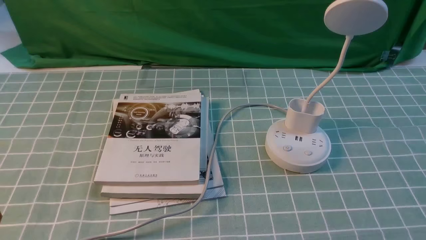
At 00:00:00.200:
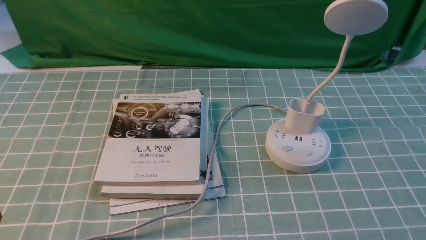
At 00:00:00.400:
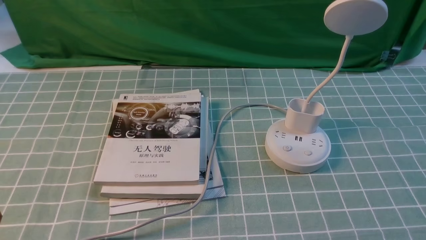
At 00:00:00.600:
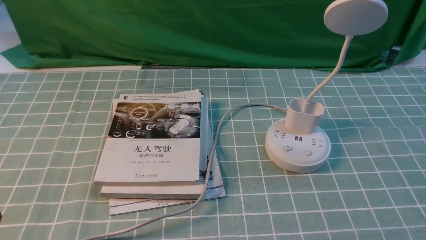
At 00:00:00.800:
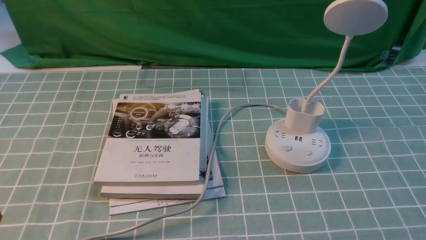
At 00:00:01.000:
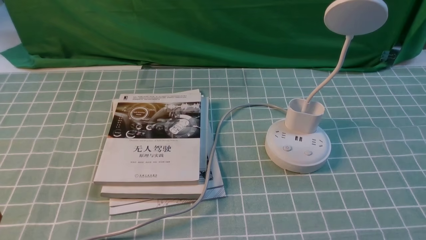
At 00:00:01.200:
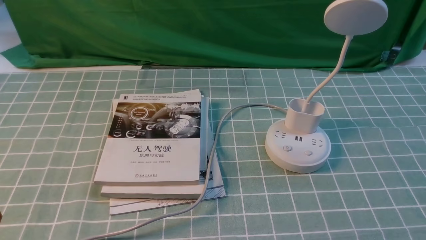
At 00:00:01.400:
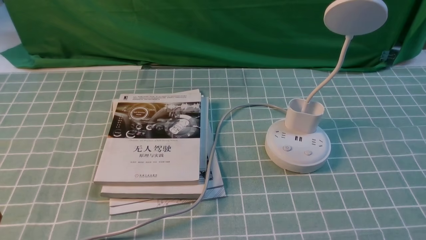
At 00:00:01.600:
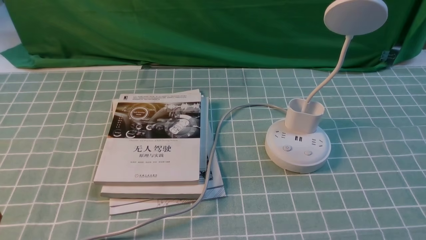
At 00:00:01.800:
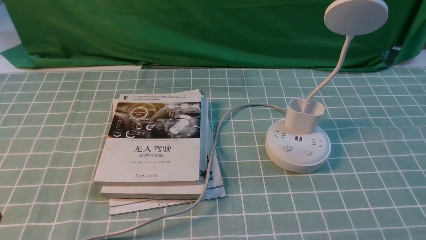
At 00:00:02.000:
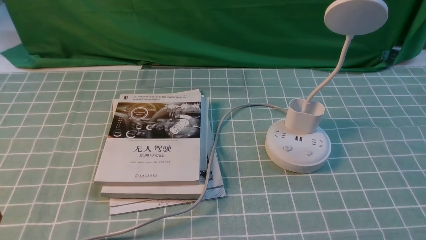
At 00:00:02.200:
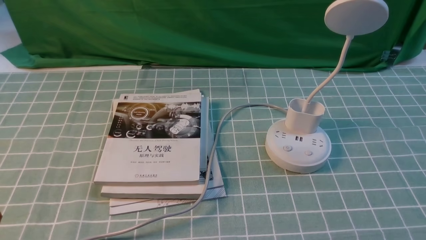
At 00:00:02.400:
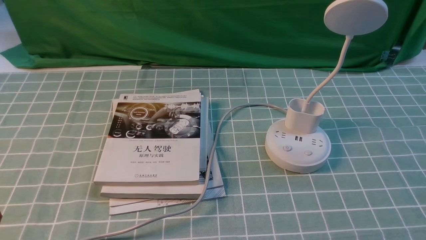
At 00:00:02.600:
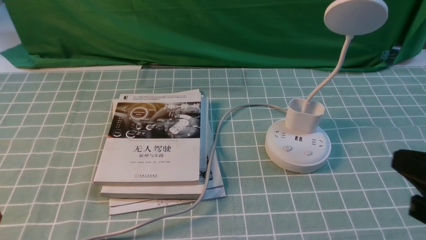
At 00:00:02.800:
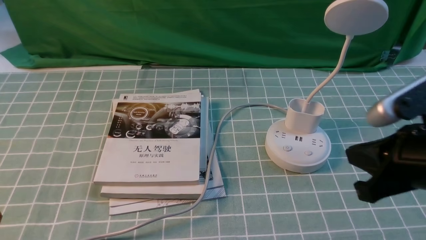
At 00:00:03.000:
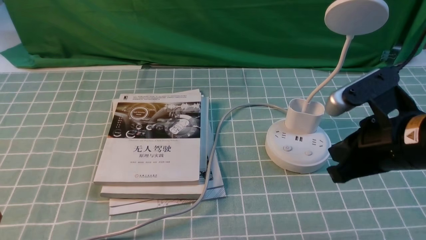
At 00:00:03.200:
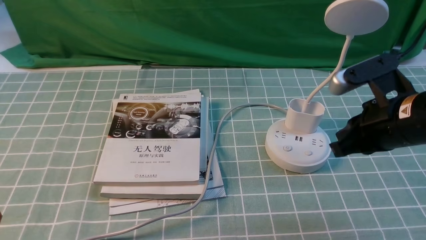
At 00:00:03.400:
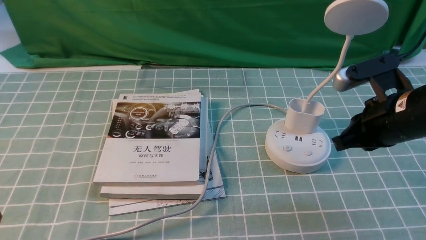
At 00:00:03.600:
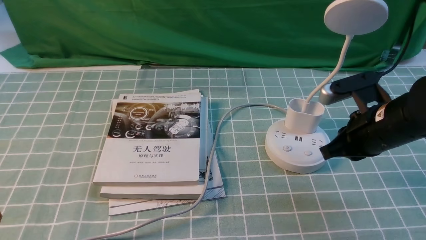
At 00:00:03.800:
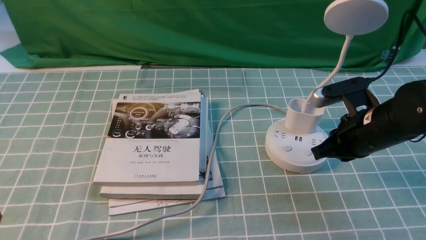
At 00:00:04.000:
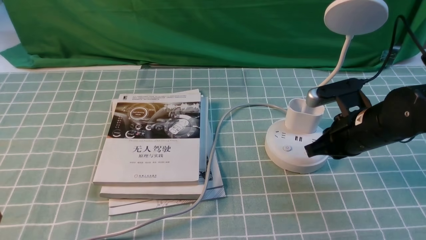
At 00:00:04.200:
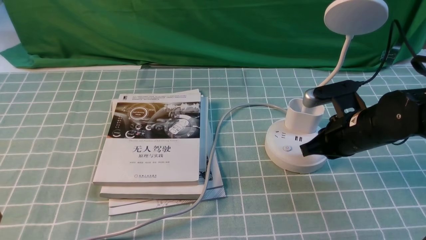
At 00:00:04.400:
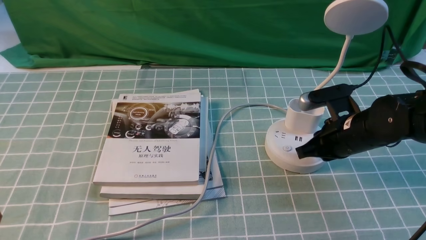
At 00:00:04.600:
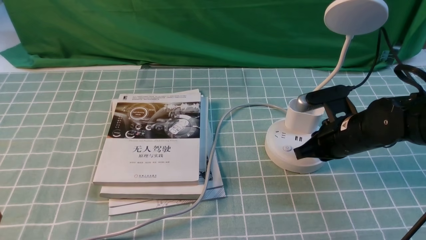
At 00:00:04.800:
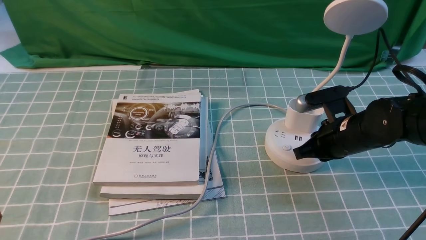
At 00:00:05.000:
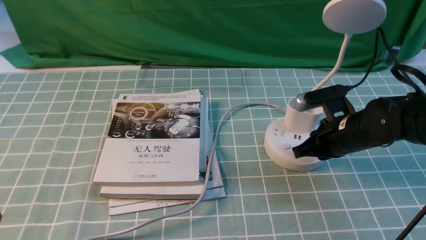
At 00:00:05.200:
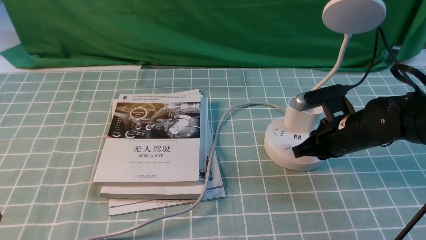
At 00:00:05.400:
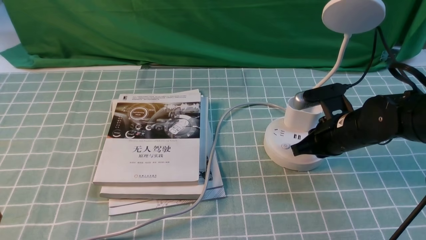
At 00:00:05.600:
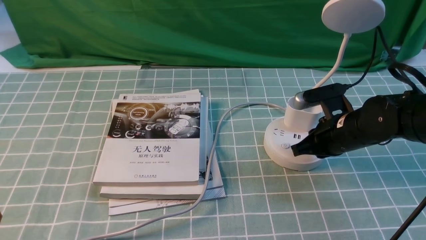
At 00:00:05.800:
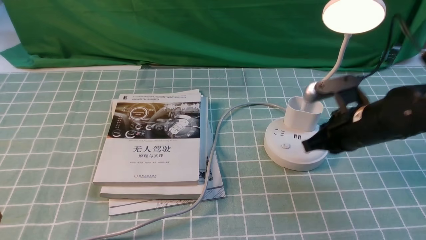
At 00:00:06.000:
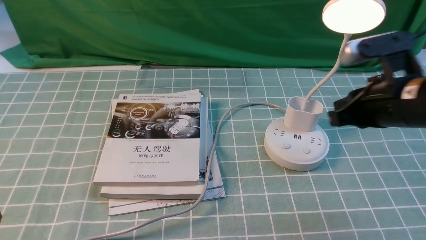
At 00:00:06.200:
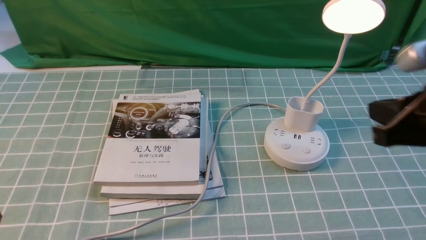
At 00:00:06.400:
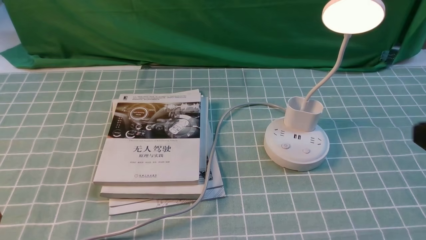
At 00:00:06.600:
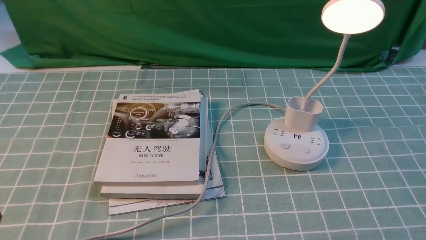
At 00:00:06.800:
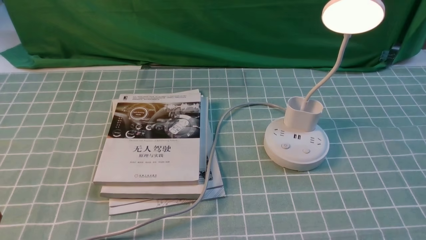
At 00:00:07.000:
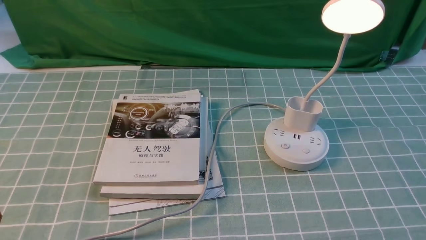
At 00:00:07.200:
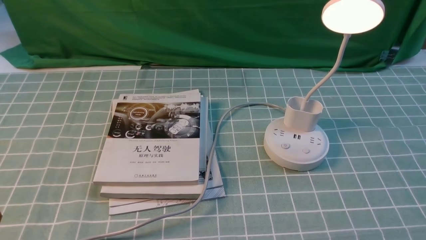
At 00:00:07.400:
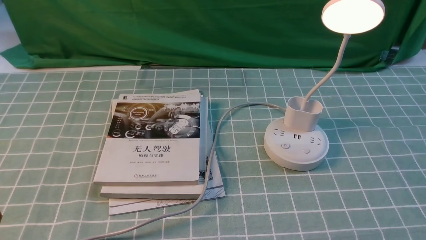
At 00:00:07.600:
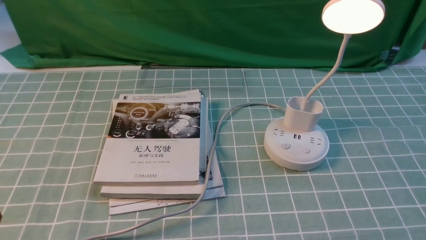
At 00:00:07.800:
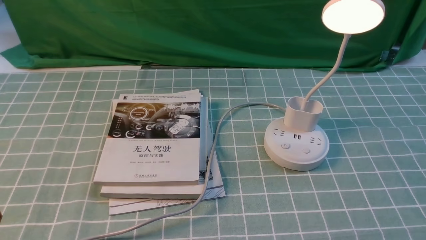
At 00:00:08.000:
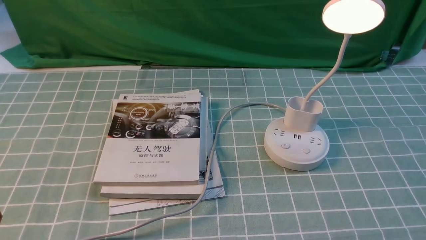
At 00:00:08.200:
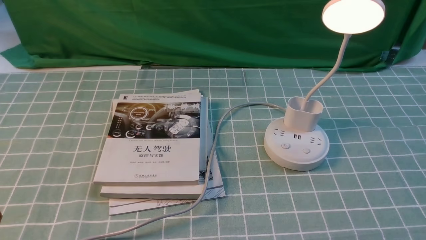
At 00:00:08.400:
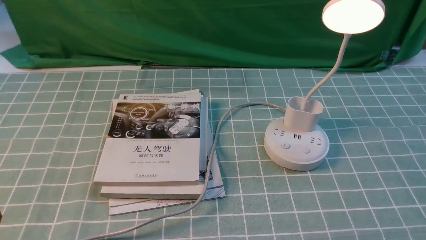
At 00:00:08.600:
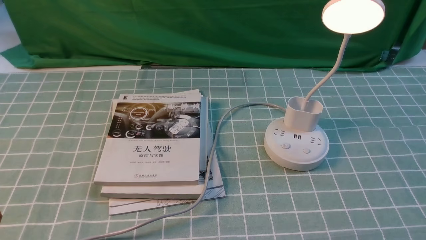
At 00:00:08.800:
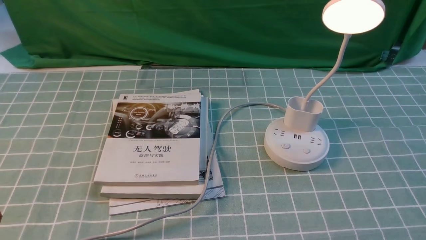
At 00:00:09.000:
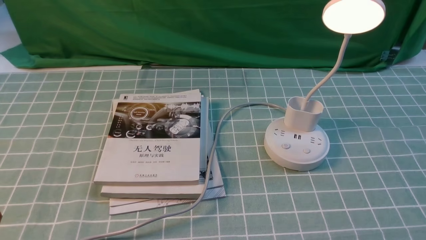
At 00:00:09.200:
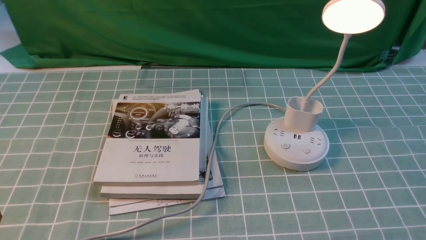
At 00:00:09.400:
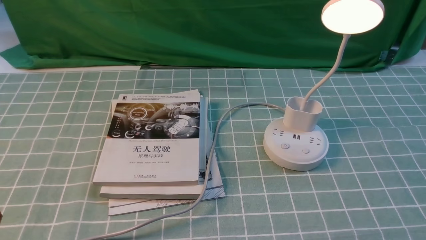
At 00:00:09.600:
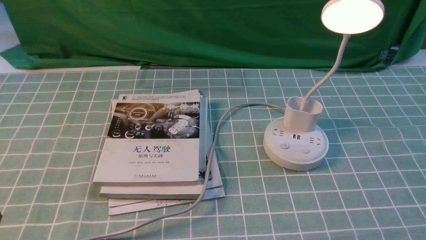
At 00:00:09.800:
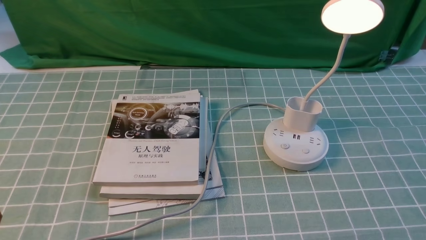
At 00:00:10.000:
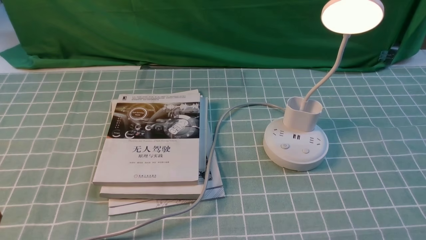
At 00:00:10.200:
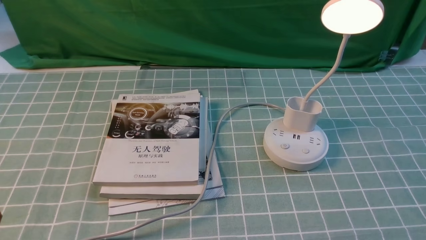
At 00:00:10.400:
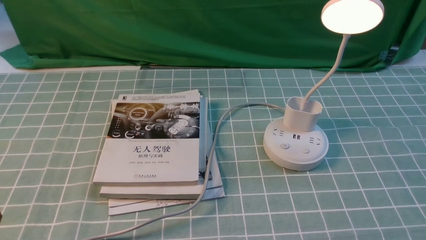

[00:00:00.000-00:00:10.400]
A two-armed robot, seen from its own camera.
Step, 00:00:00.000 to 00:00:05.800: use the right arm to press the button switch on the lamp holder.
00:00:01.400 to 00:00:03.000: The right gripper is displaced forward, to the left and upward by some 20 cm, and closes up.
00:00:03.000 to 00:00:04.400: The right gripper goes approximately 15 cm downward and forward.
00:00:04.400 to 00:00:06.000: The right gripper shifts about 15 cm upward and backward.
00:00:06.000 to 00:00:07.400: The right gripper shifts about 20 cm backward and to the right, and opens its fingers.
00:00:09.000 to 00:00:10.400: Both grippers stay about where they are.
